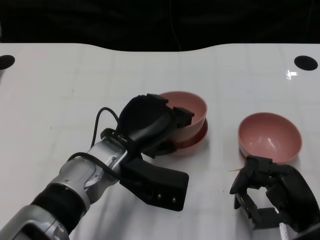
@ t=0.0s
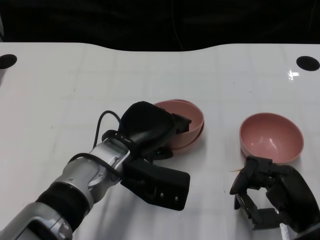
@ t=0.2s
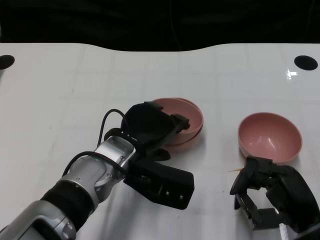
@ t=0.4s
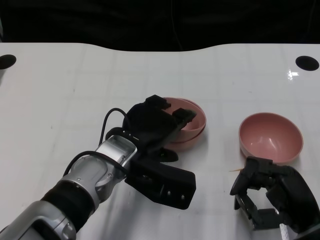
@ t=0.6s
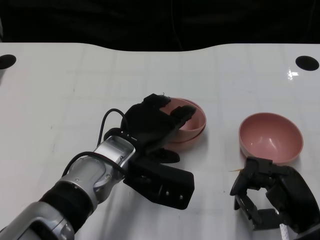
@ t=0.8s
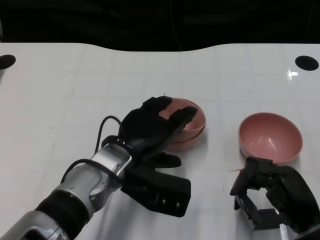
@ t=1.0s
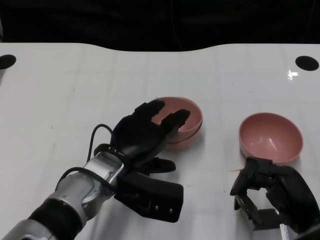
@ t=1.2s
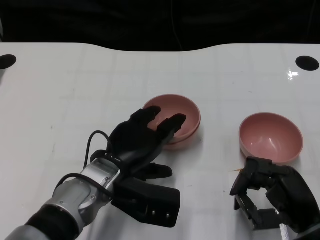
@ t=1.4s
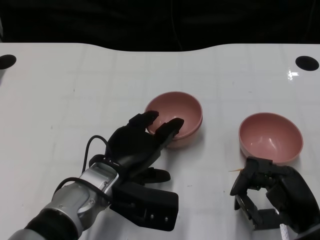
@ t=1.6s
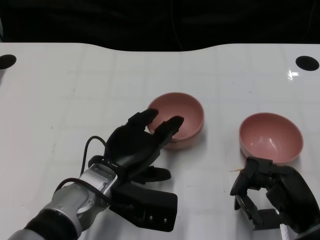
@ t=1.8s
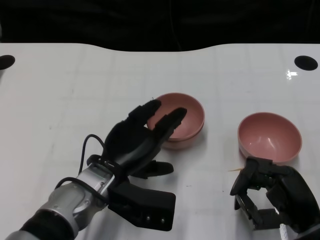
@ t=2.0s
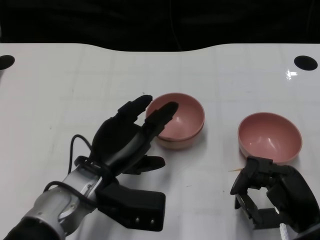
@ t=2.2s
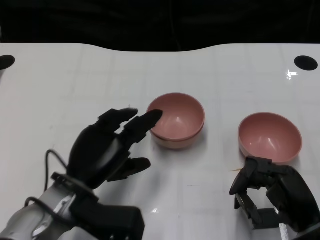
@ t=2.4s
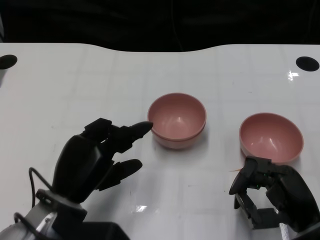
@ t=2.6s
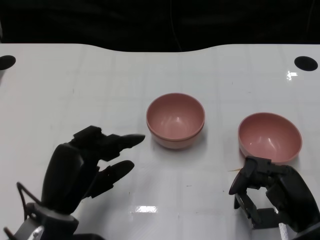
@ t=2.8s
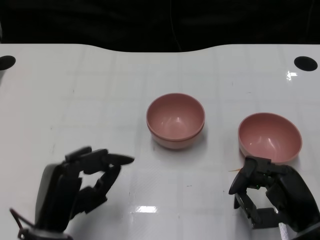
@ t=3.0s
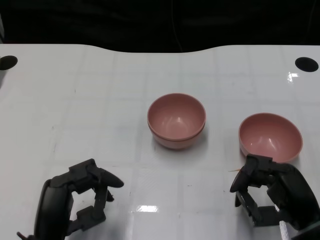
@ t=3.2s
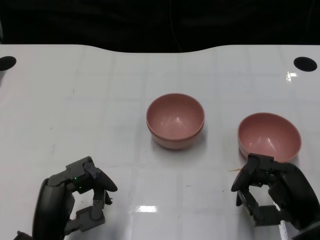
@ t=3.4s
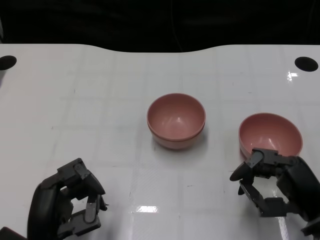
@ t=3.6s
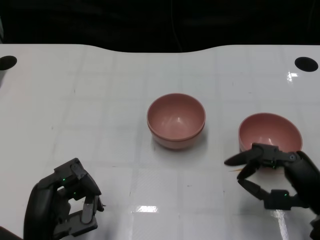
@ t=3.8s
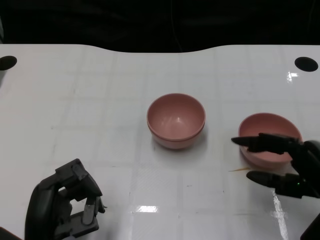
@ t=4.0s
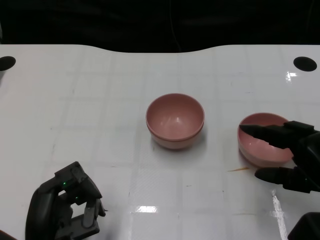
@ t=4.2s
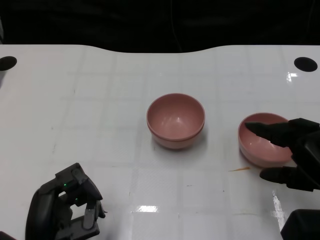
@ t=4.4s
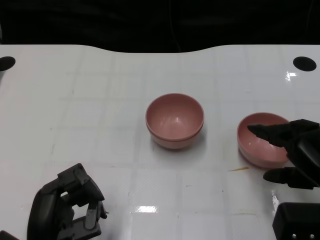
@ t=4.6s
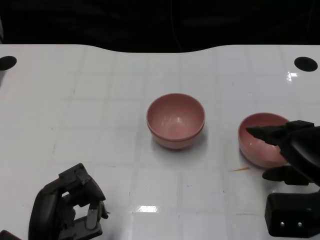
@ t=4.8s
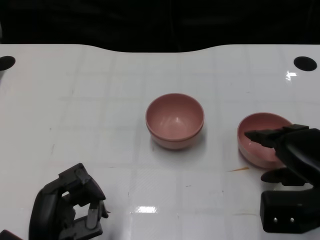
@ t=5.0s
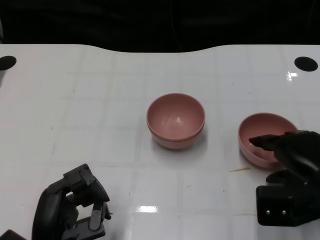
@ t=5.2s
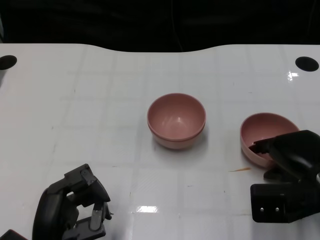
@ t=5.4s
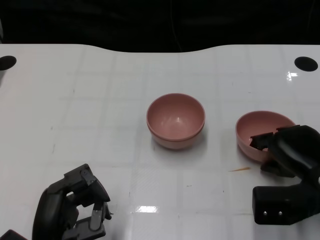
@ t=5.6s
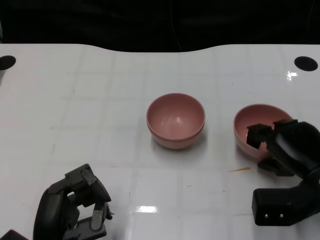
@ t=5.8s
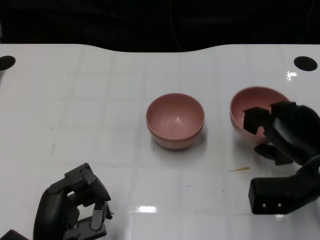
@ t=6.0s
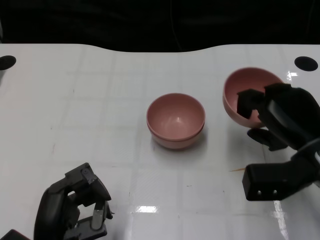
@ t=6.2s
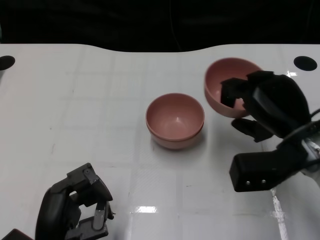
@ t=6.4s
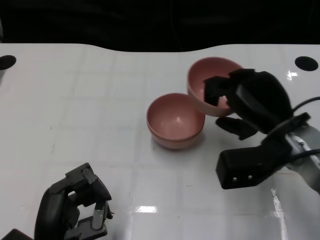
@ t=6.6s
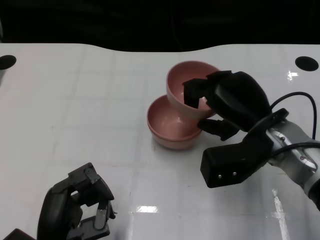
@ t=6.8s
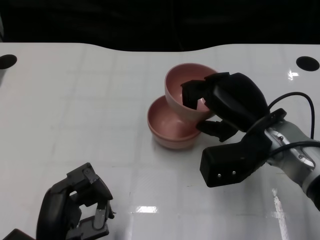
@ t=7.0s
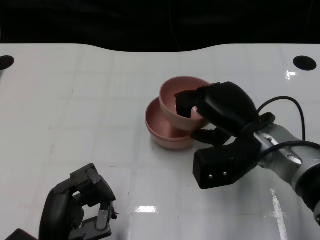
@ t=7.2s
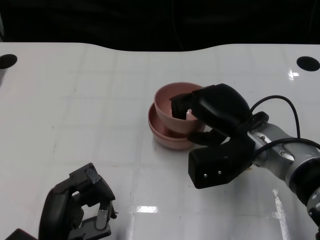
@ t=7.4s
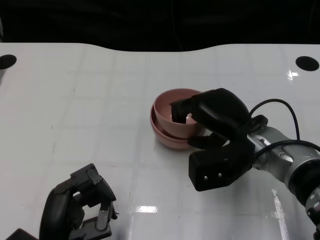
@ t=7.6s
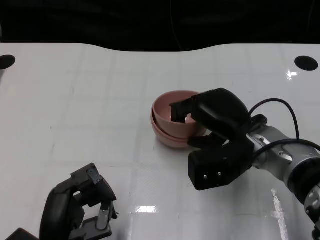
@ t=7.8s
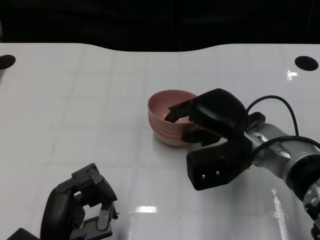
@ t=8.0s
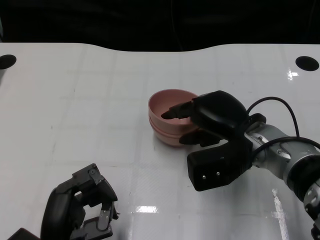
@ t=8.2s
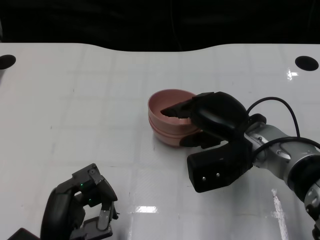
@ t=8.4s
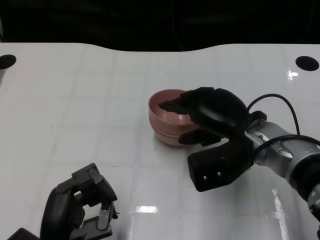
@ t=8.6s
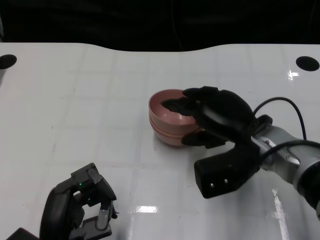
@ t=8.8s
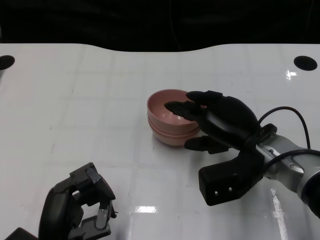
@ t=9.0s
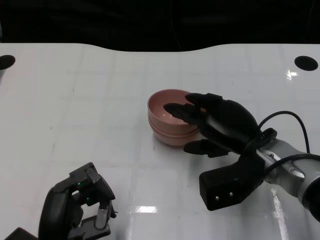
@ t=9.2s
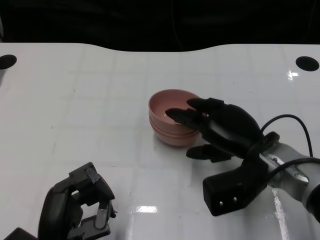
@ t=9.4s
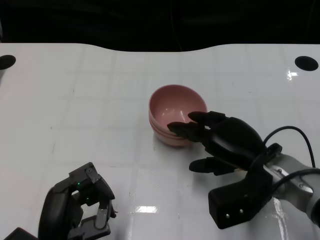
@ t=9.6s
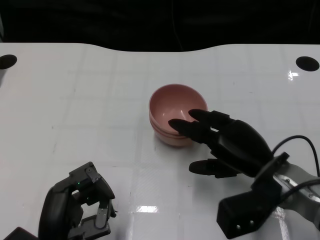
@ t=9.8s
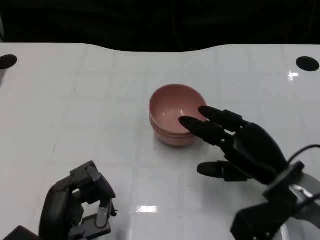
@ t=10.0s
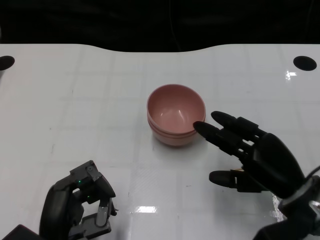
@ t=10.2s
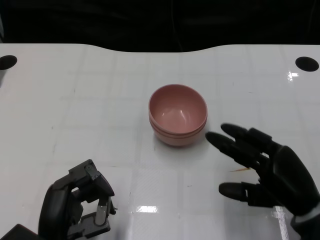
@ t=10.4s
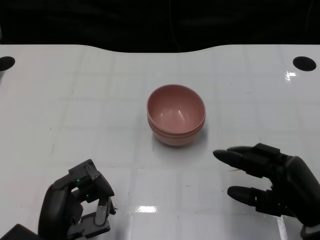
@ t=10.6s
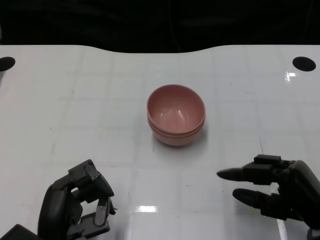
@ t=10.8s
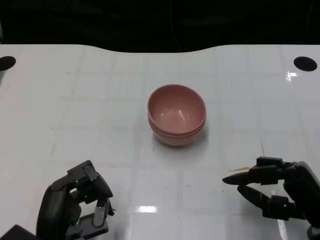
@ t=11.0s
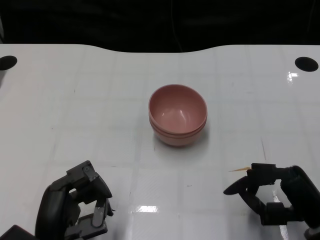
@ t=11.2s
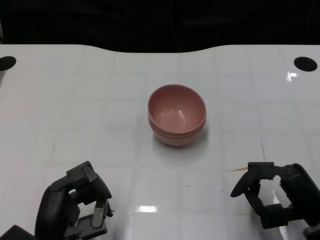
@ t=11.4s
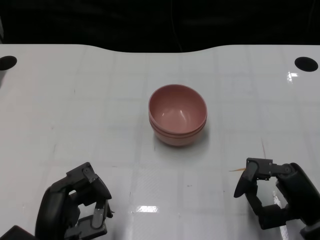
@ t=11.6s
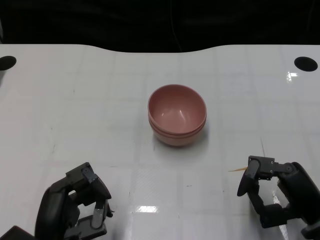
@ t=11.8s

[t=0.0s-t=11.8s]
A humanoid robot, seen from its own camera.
Task of the whole recording: Pick up the bowl on one side of the table and place it on top of the middle bowl, then pick up the bowl on the other side of the table and place it on top of the middle bowls.
Step, t=0.0s to t=2.0s: Place the bowl on the left onto the bowl in the middle with left gripper.
Step, t=2.2s to t=5.8s: Grasp the bowl on the right with the right gripper.
Step, t=6.0s to t=10.0s: Place the bowl on the right onto the bowl in the middle with right gripper.
t=0.0s to t=1.4s: There are only small adjustments of the hands.
t=1.4s to t=3.0s: The left hand travels backward and to the left by some 10 cm.
t=3.0s to t=4.4s: The right hand moves upward, roughly 5 cm.
t=4.4s to t=6.0s: The right hand is displaced forward by about 5 cm.
t=6.0s to t=7.4s: The right hand goes some 10 cm to the left.
t=7.4s to t=8.8s: There are only small adjustments of the hands.
t=8.8s to t=10.4s: The right hand goes some 15 cm backward, to the right and downward.

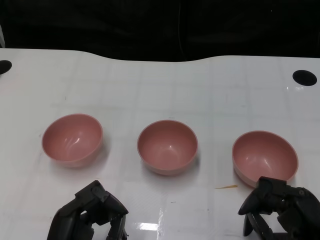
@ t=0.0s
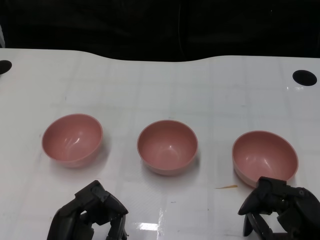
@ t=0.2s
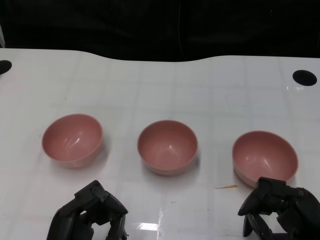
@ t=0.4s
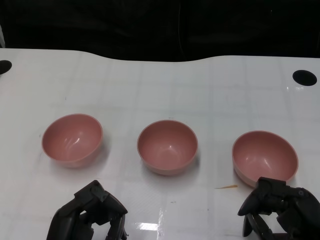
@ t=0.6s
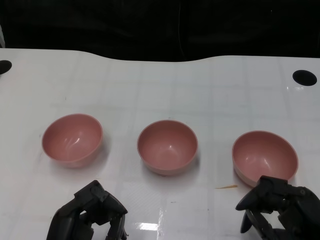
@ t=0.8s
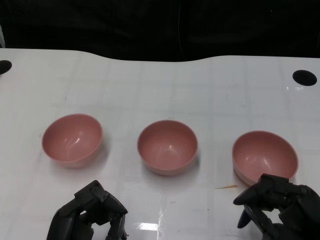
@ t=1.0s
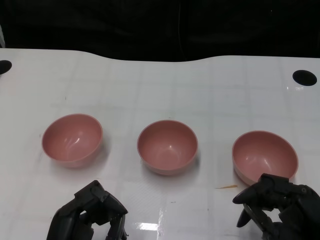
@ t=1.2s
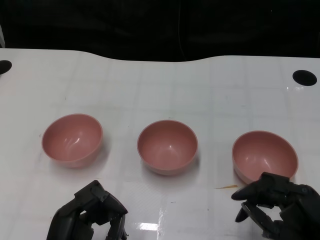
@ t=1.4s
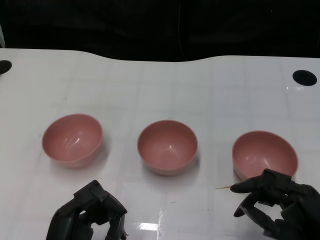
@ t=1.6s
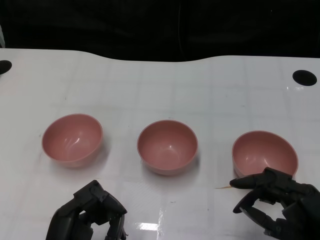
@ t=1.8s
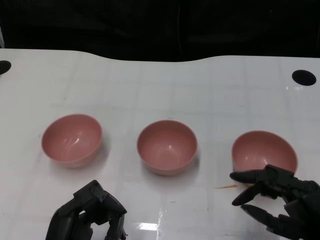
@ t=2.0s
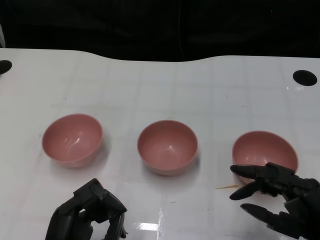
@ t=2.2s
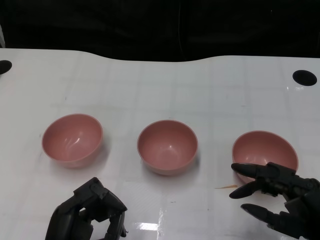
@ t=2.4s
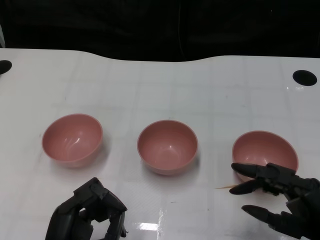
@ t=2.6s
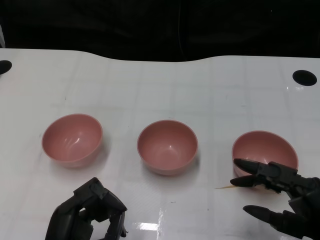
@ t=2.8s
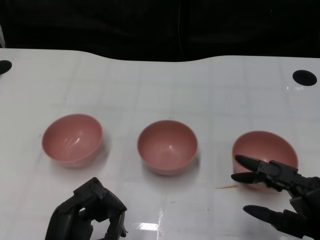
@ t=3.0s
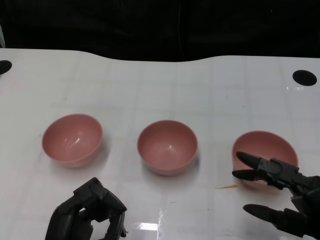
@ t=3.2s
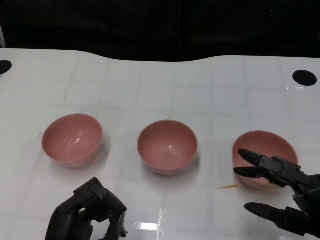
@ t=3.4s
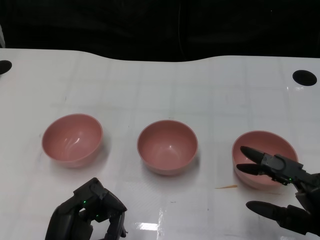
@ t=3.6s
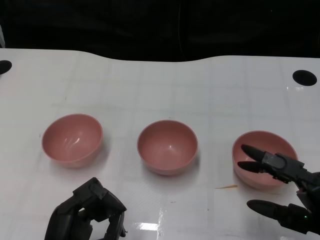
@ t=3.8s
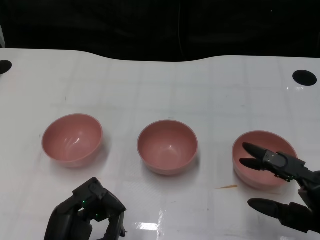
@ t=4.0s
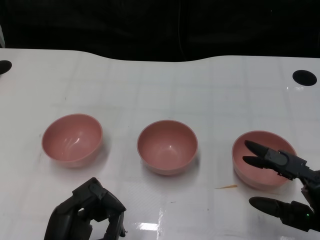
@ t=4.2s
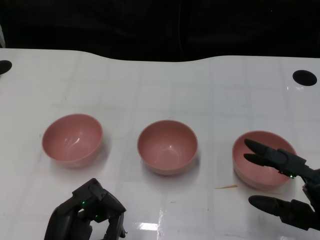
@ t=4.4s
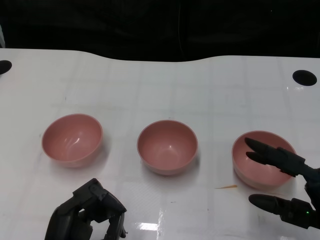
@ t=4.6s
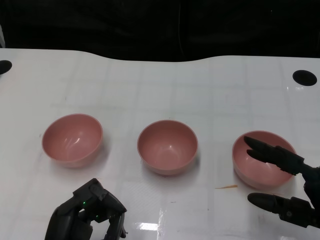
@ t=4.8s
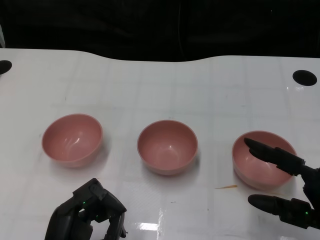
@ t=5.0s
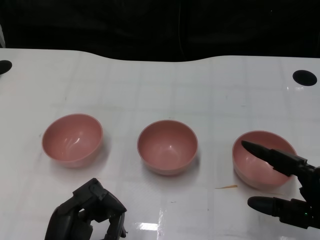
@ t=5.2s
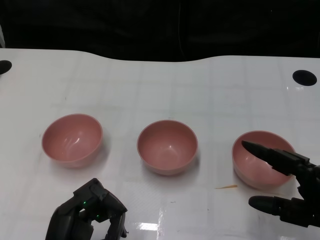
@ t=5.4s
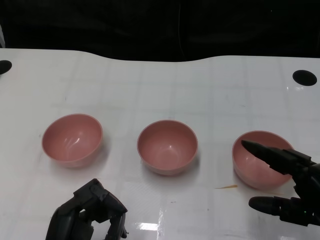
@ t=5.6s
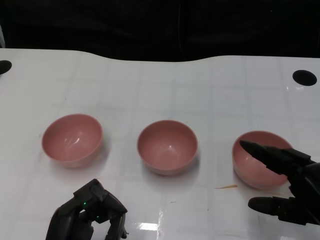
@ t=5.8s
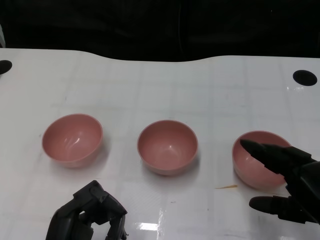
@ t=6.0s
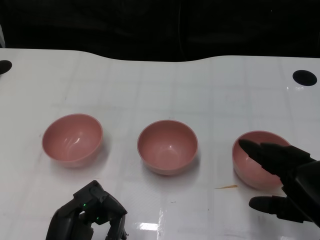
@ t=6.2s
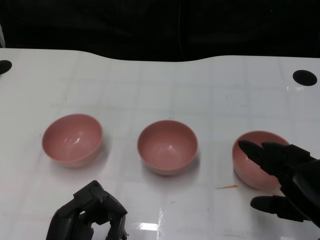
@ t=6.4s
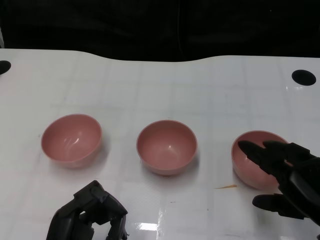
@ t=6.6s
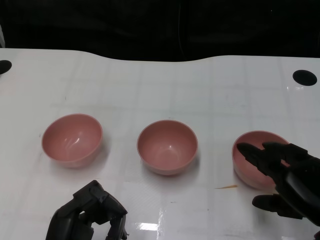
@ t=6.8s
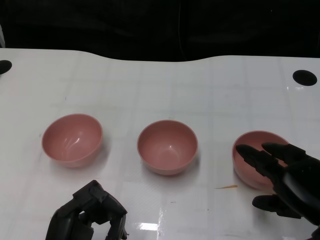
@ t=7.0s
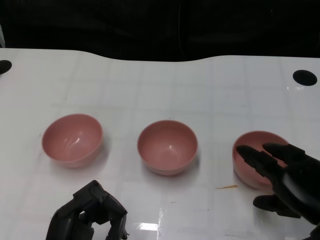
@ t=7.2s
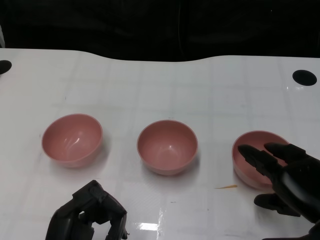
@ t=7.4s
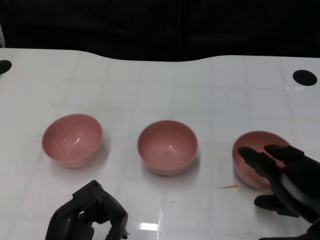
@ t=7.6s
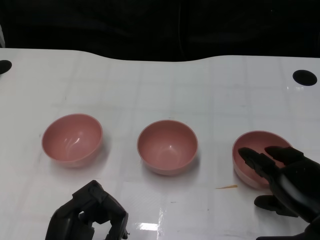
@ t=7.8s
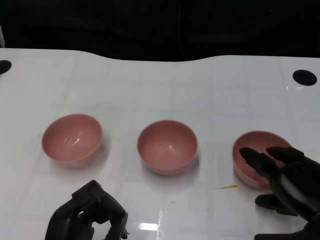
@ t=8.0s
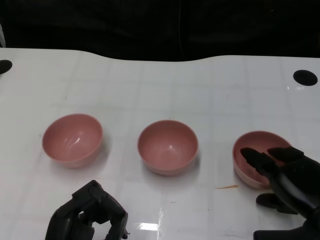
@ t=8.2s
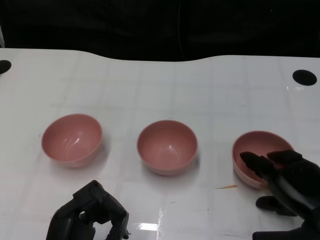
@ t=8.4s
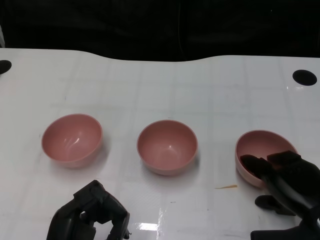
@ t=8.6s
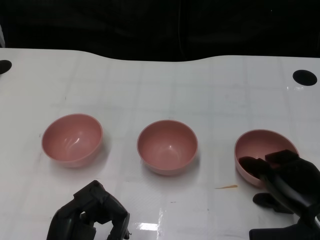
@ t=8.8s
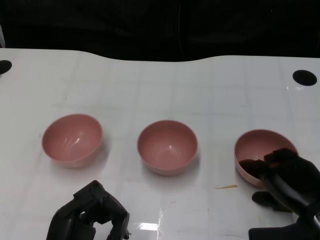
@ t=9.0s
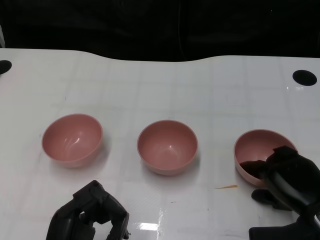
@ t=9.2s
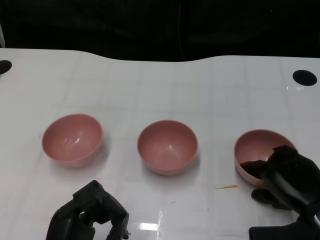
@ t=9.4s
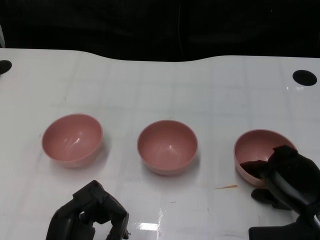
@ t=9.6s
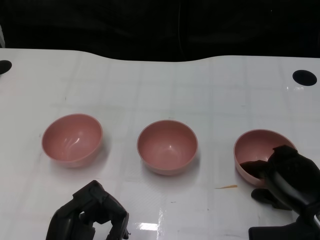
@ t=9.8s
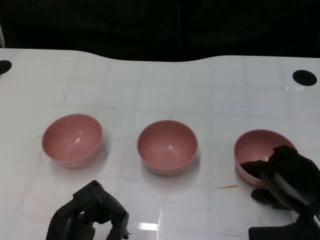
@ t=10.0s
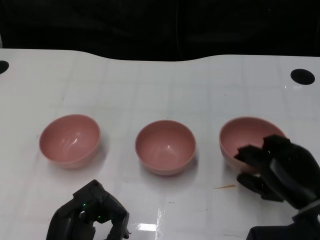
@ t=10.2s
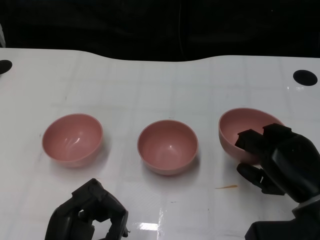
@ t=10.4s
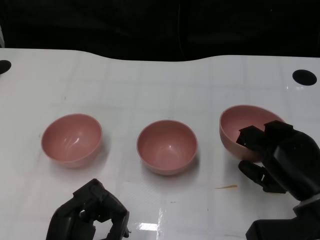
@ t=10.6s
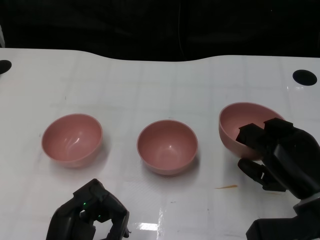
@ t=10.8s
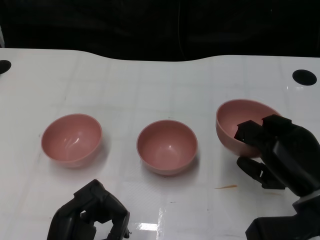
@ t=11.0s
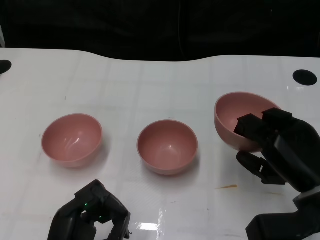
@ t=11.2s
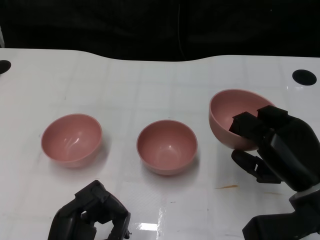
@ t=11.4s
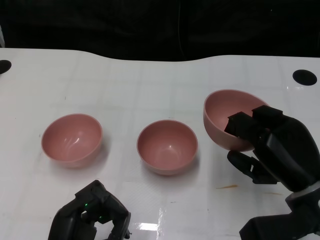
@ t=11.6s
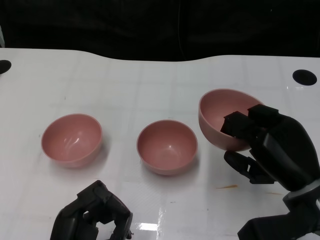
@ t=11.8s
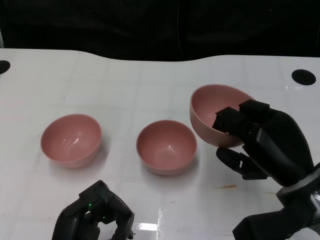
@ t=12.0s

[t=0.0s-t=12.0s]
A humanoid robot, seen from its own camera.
Task of the whole recording: Pick up the bowl on one side of the table and place it on top of the middle bowl, then pick up the bowl on the other side of the table and place it on top of the middle bowls.
Step, t=0.8s to t=10.0s: Grasp the bowl on the right with the right gripper.
t=1.6s to t=3.0s: The hands move only a little.
t=3.0s to t=4.4s: The hands make only small movements.
t=7.6s to t=9.0s: There are only small adjustments of the hands.
t=10.4s to t=12.0s: The hands make only small movements.
